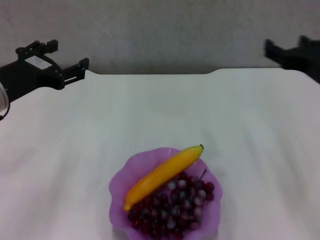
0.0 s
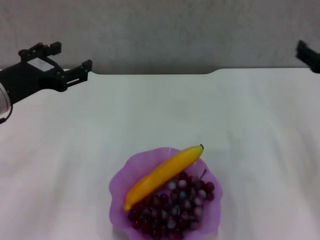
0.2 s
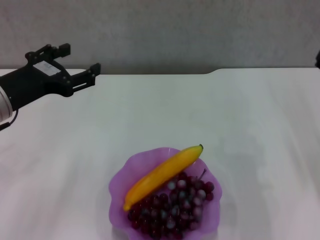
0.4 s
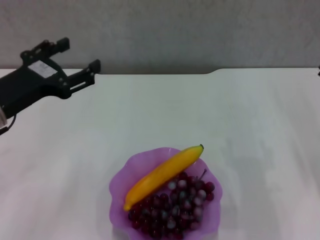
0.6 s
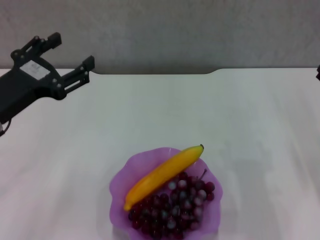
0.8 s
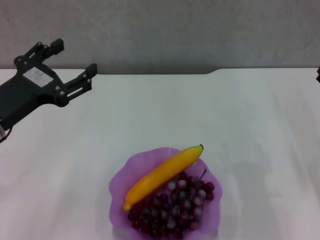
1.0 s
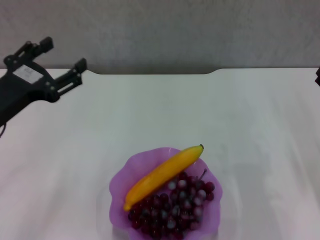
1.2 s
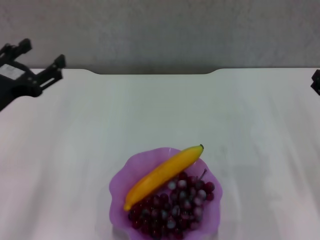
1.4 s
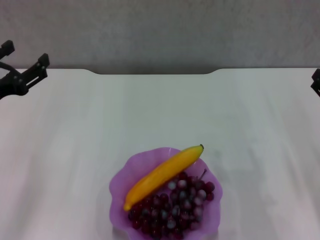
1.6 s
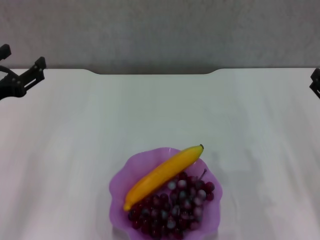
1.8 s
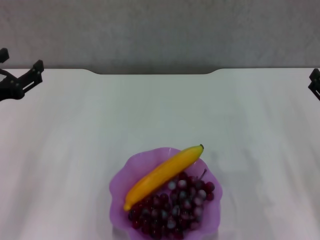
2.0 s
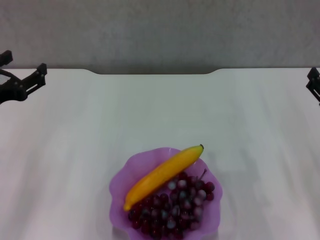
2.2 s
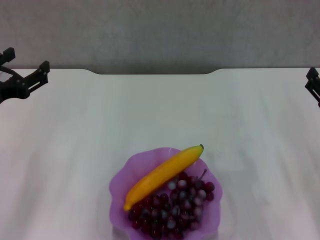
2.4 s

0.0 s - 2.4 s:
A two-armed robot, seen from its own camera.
0.0 s - 1.2 s: The right gripper is displaced downward and to the right by roughly 10 cm.
1.2 s - 2.4 s: The grippers stay close to where they were, moving slightly.
